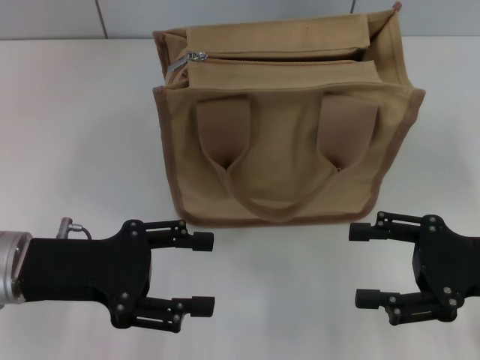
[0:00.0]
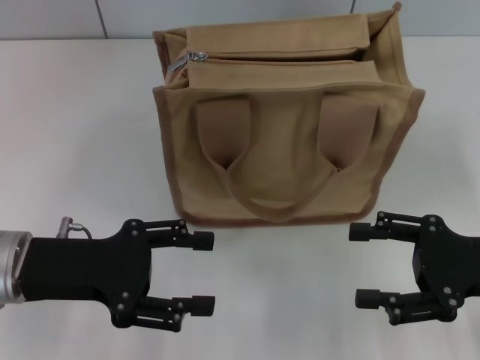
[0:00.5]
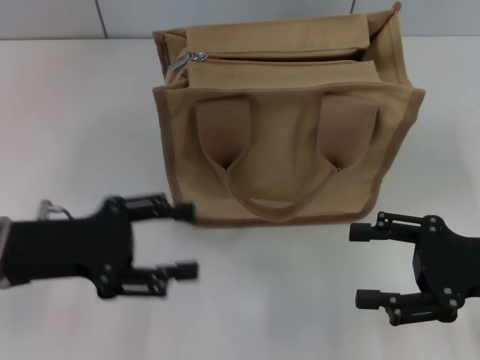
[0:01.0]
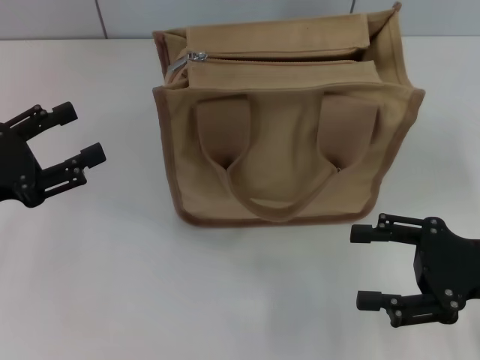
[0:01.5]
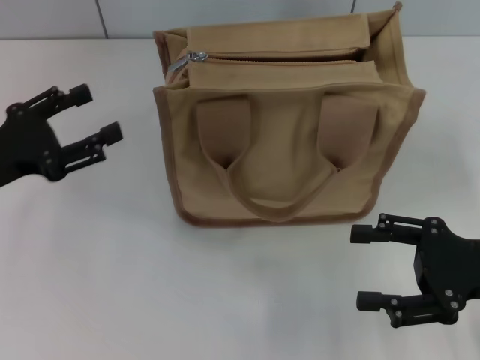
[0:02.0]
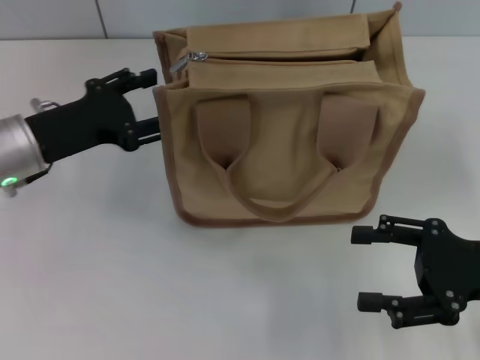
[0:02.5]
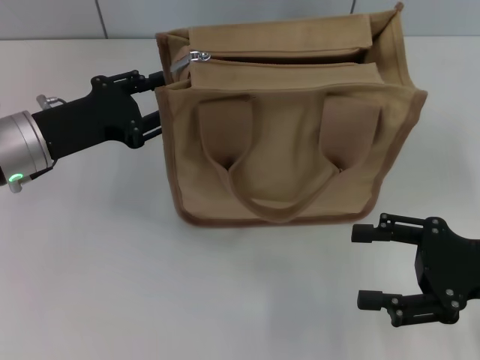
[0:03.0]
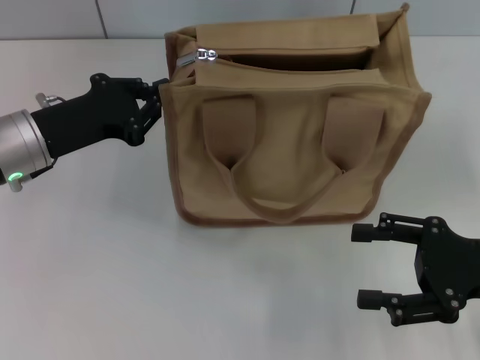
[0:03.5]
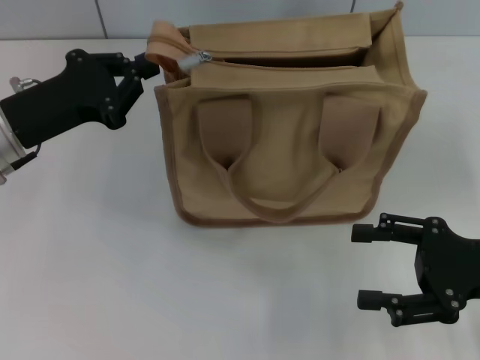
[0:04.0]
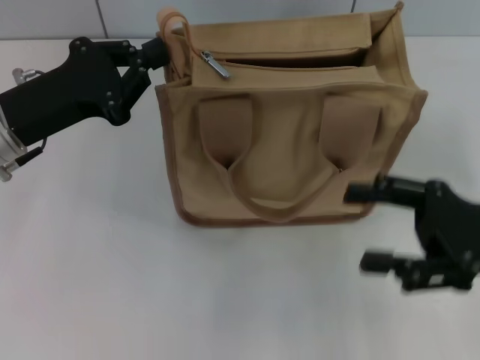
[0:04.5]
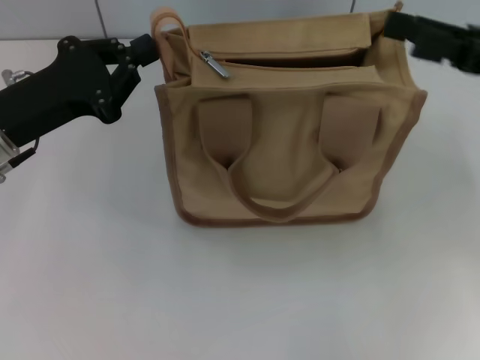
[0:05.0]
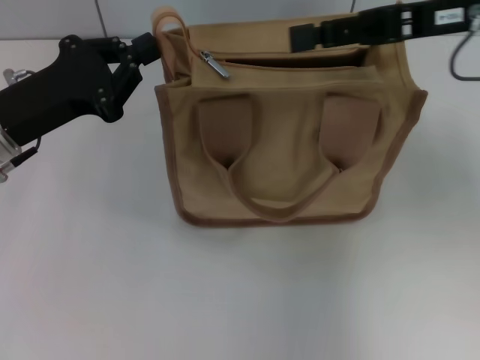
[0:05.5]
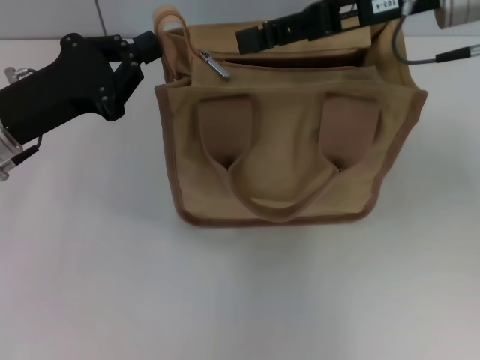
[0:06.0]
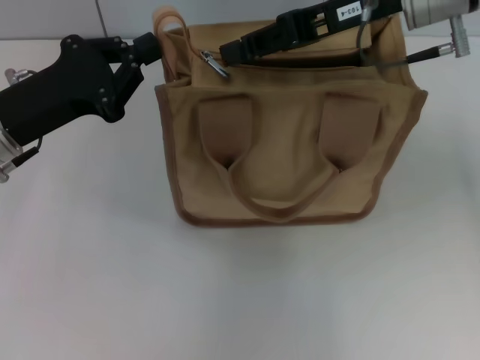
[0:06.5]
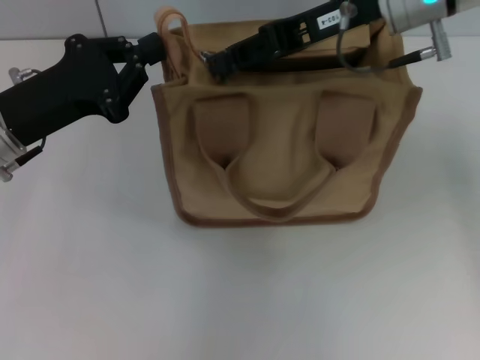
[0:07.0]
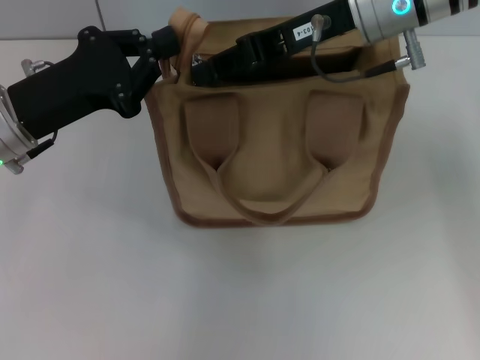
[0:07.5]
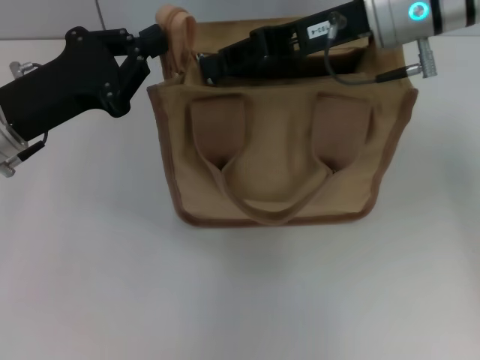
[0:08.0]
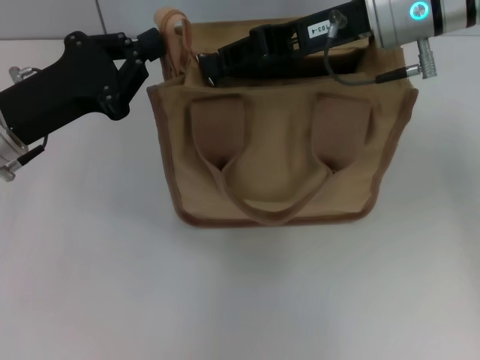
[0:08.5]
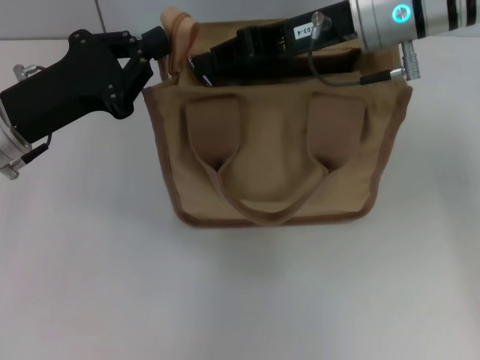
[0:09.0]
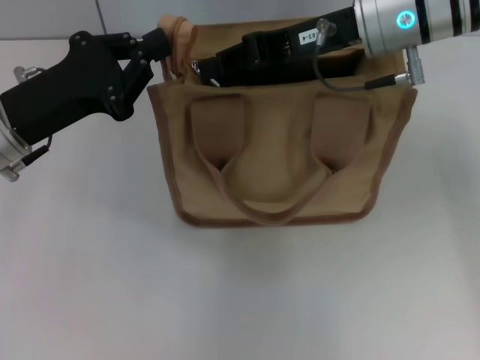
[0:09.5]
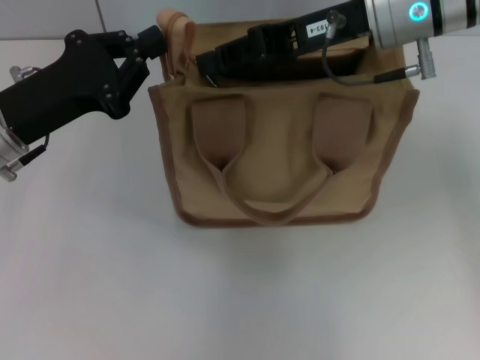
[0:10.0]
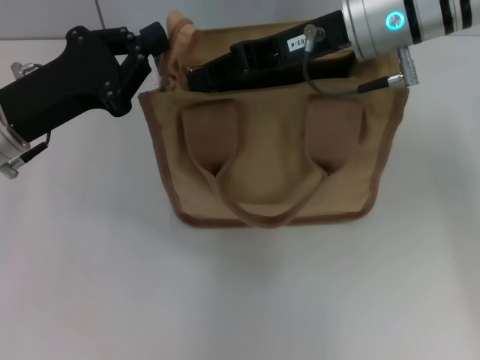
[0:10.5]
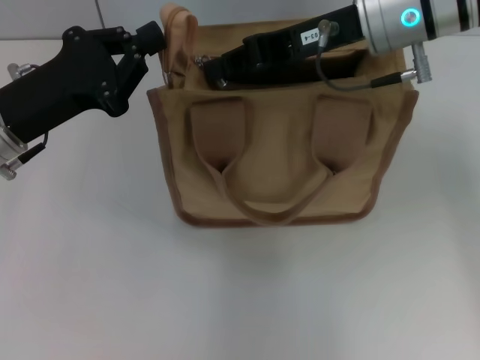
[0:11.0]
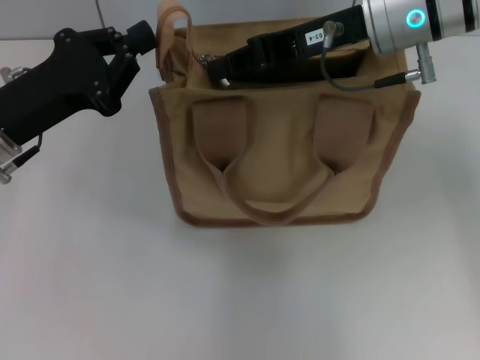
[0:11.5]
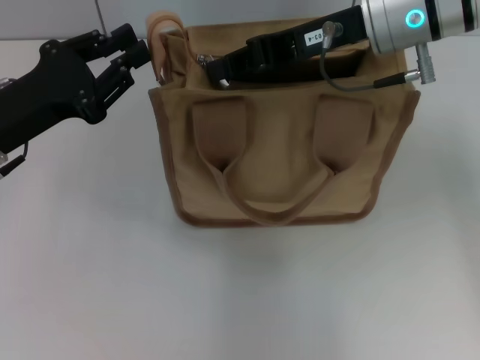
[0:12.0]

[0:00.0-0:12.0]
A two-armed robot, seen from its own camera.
0:00.0 to 0:02.0: The left gripper goes about 5 cm to the left.
0:02.0 to 0:04.0: The left gripper moves to the right, about 5 cm, and closes up.
0:04.0 to 0:06.0: The right gripper moves forward, upward and to the left, some 25 cm.
0:06.0 to 0:08.0: The right gripper closes up.
0:08.0 to 0:10.0: Neither gripper changes place.
0:10.0 to 0:12.0: There are only small adjustments of the grippers.

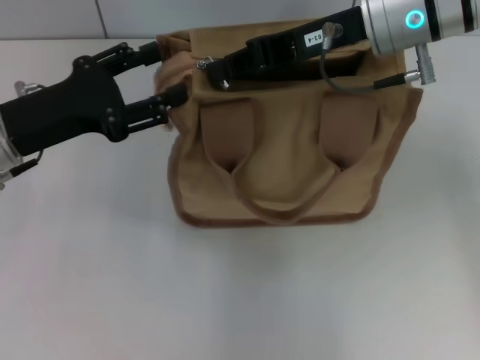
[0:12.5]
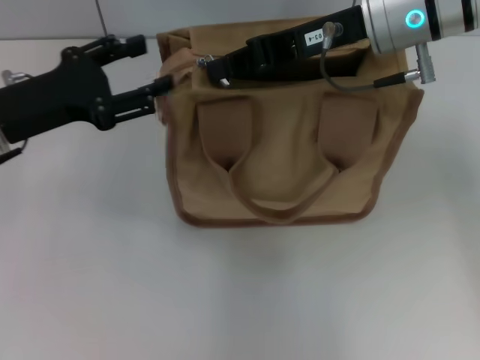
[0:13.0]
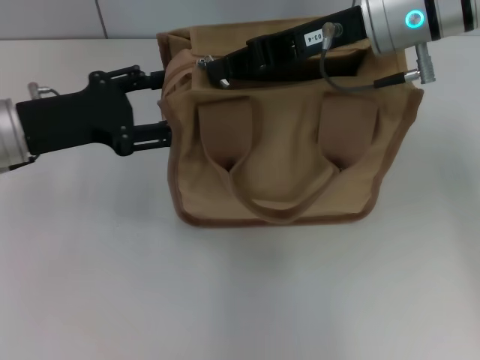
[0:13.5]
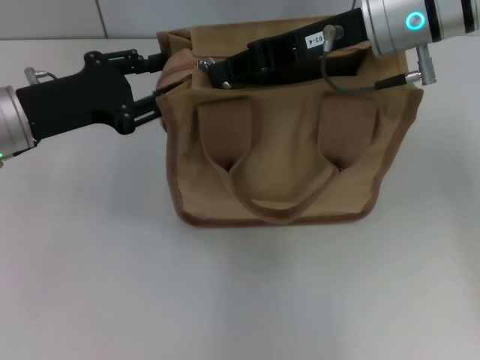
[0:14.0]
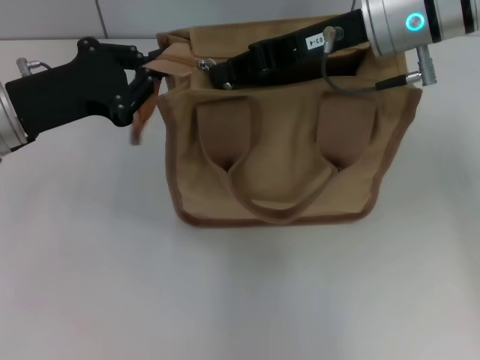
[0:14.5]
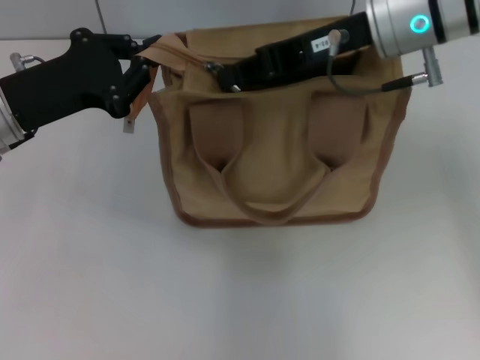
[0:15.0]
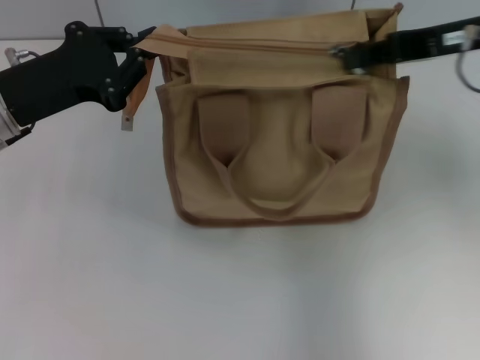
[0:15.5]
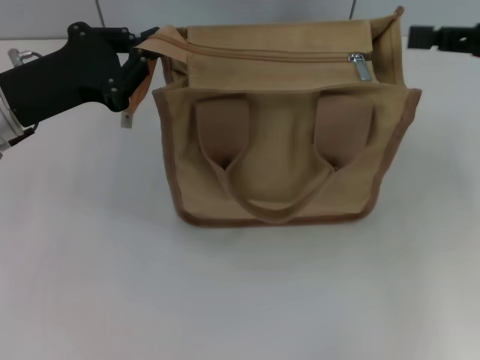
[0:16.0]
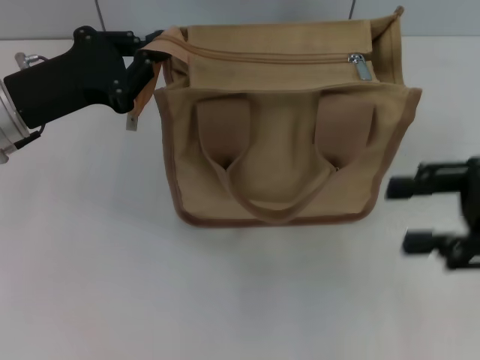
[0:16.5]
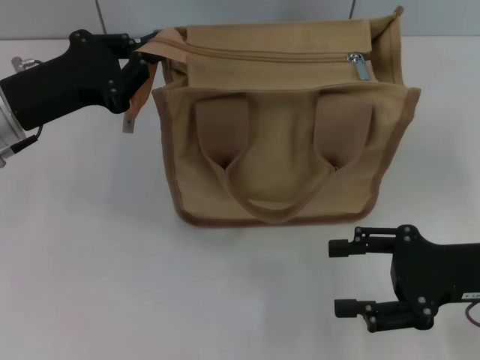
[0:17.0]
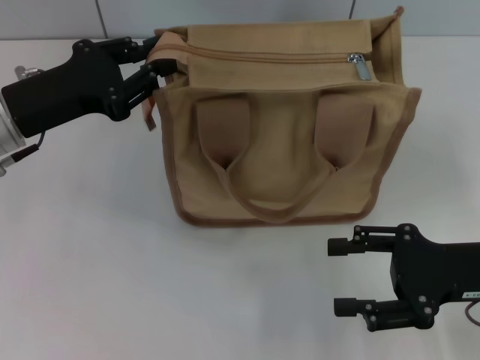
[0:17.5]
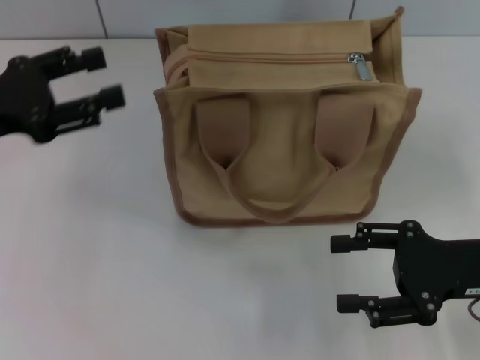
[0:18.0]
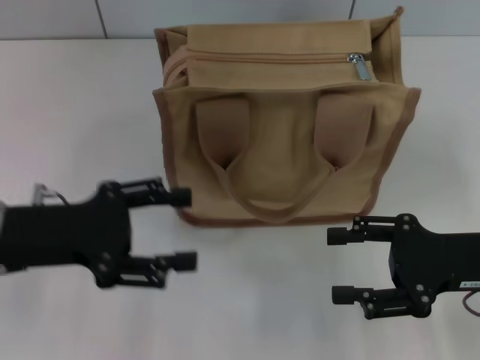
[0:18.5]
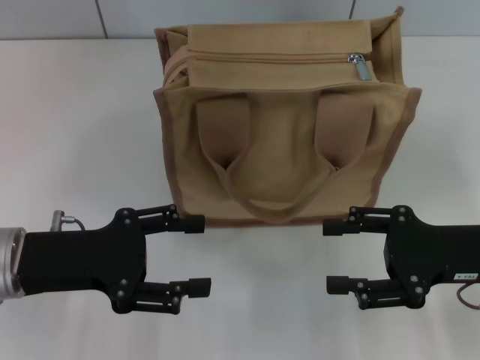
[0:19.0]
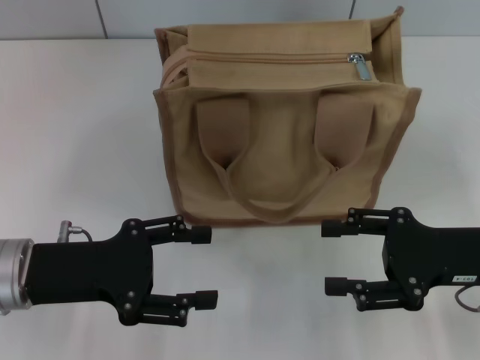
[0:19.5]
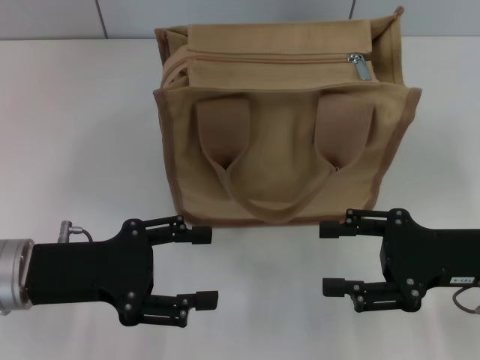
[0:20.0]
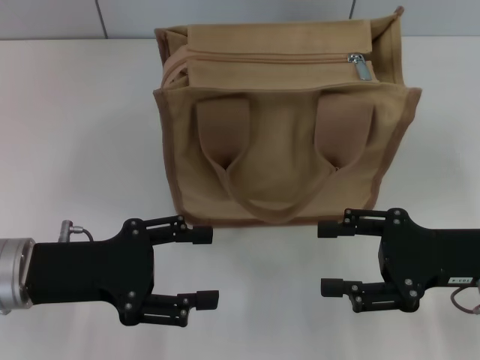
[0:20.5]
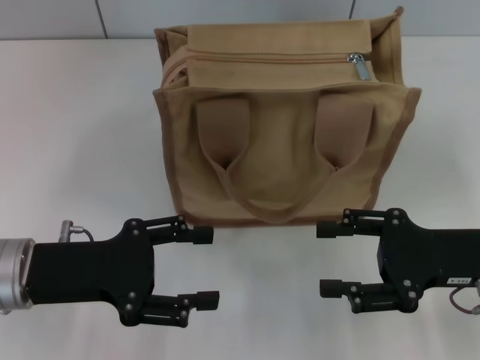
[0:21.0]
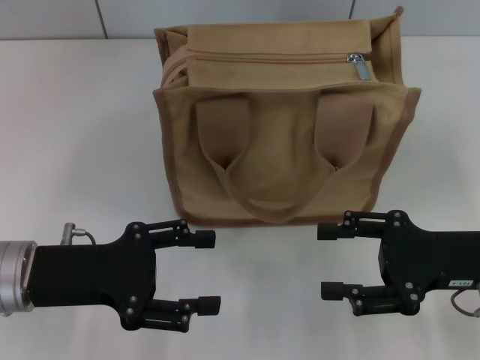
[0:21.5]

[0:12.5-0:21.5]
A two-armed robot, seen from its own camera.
Step, 0:12.5 to 0:15.5: Pull up the zipper with your right hand.
Step, 0:16.0 to 0:18.0: Grab the zipper with your left hand.
0:12.5 to 0:14.5: The left gripper closes up.
0:14.5 to 0:17.0: The right gripper is displaced backward, downward and to the right by roughly 25 cm, and opens its fingers.
0:17.0 to 0:19.5: The left gripper travels backward and downward by some 10 cm, and opens up.
0:19.5 to 0:21.5: Neither gripper changes place.

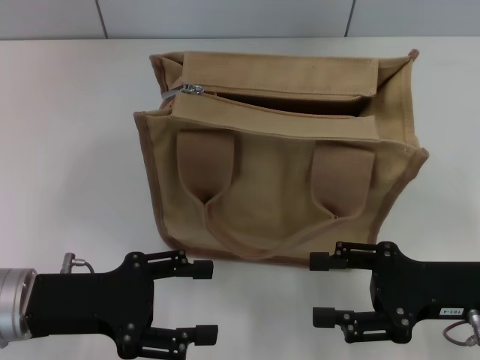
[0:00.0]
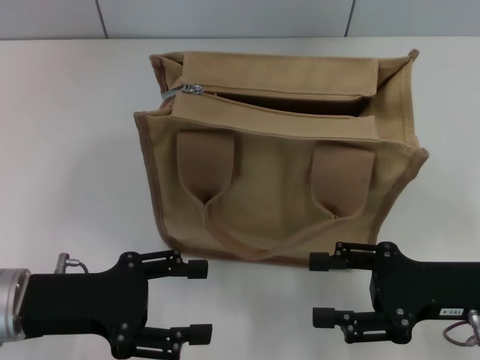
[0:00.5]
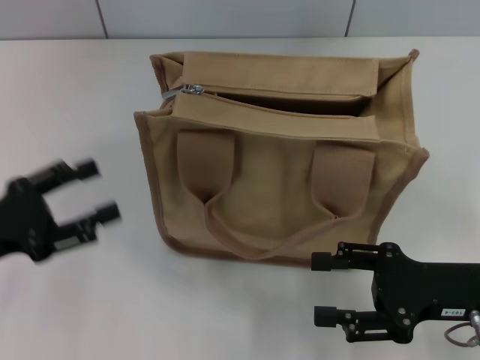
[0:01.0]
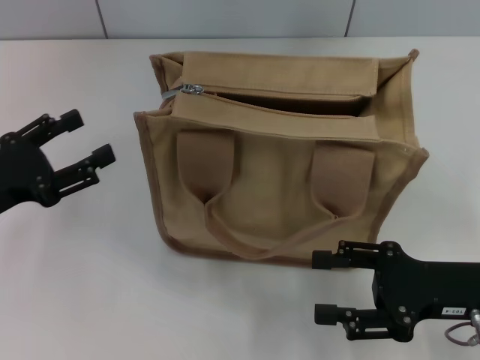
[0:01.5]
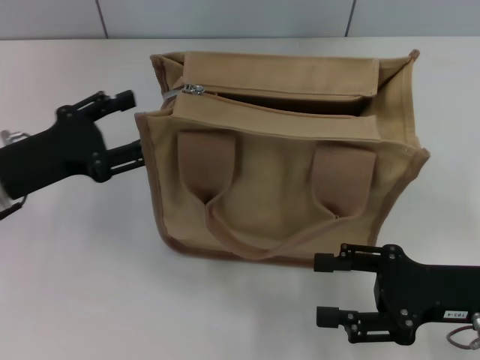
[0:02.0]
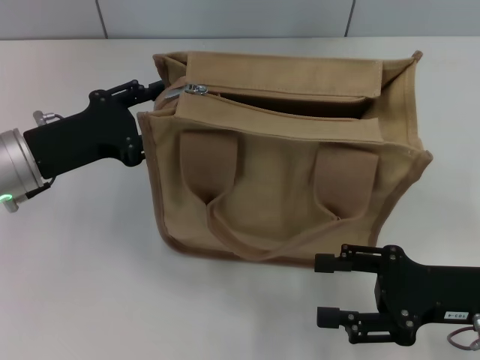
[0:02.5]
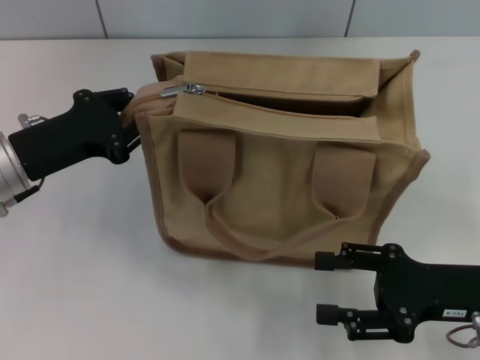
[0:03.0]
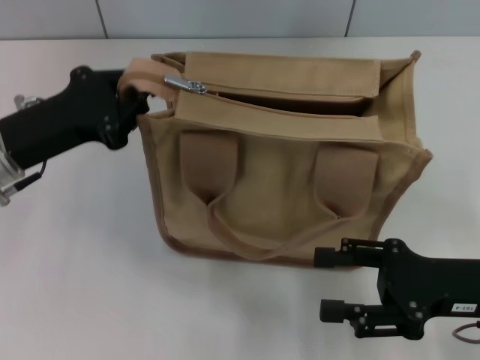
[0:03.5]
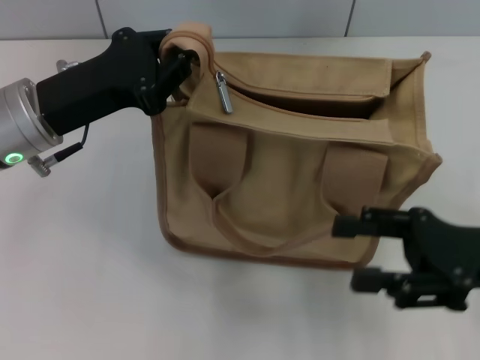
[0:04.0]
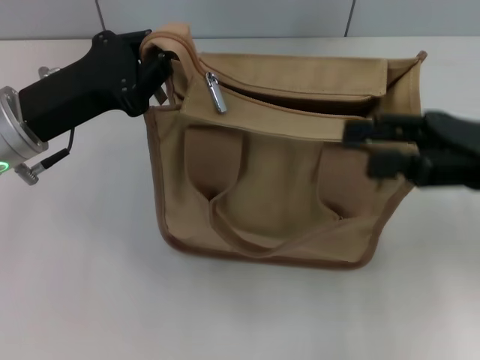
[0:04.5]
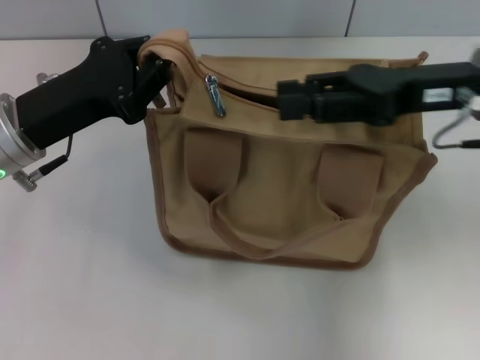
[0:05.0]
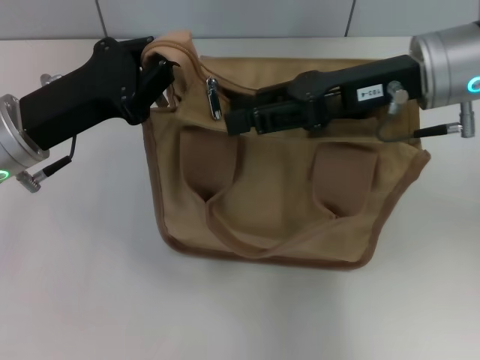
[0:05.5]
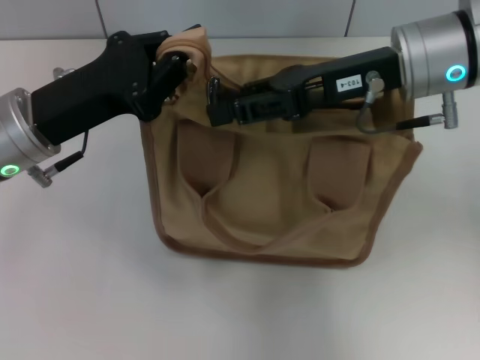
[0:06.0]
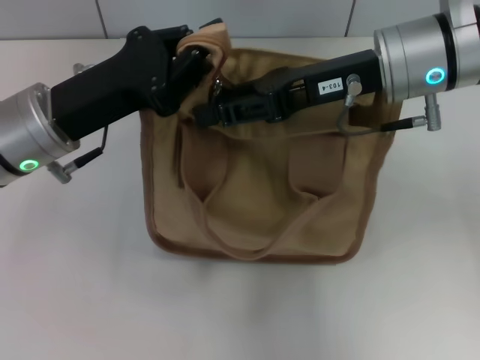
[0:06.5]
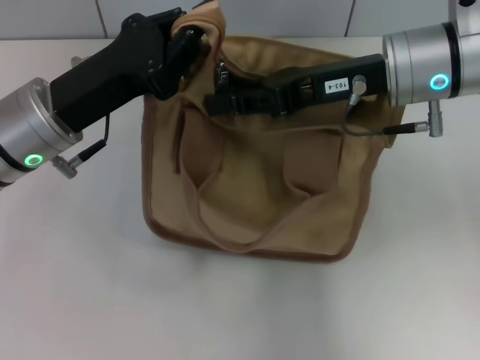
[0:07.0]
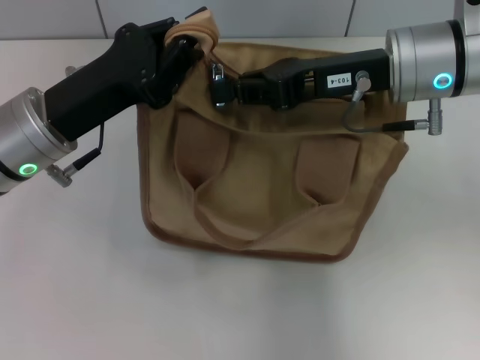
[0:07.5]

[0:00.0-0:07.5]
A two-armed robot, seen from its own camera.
0:00.0 to 0:02.0: The left gripper goes approximately 5 cm forward.
0:02.0 to 0:04.0: The left gripper shifts roughly 5 cm to the right, and closes.
0:04.0 to 0:05.5: The right gripper heads forward, to the left and upward, covering about 20 cm.
0:05.5 to 0:07.5: The right gripper closes its fingers.
